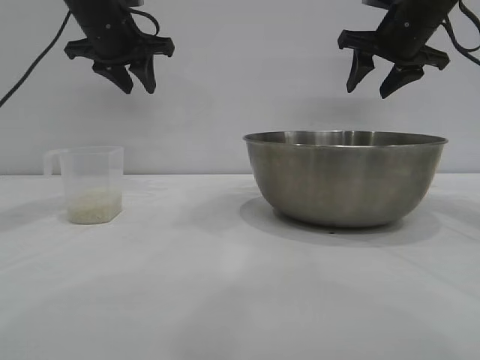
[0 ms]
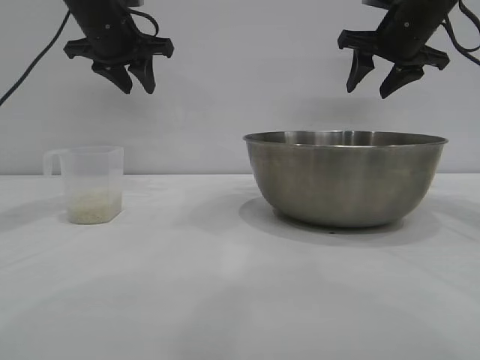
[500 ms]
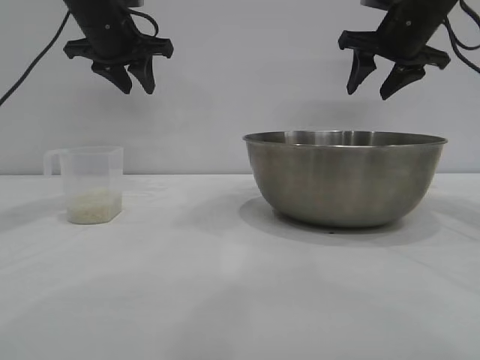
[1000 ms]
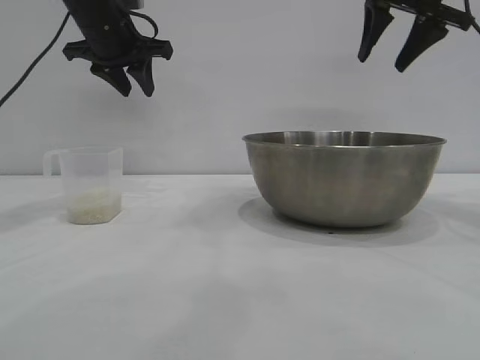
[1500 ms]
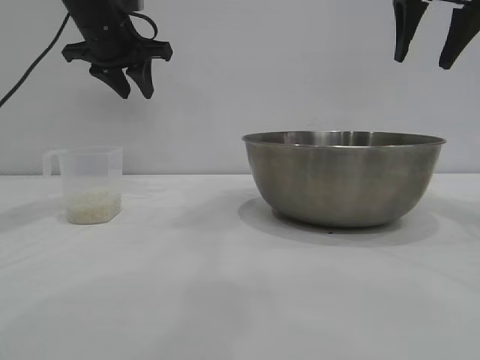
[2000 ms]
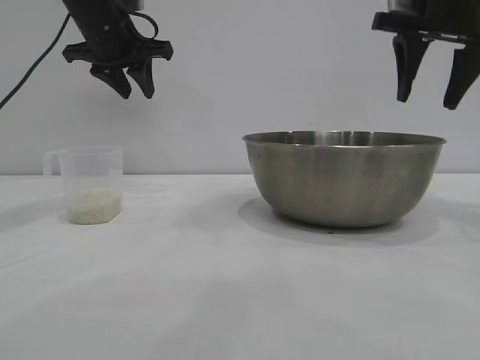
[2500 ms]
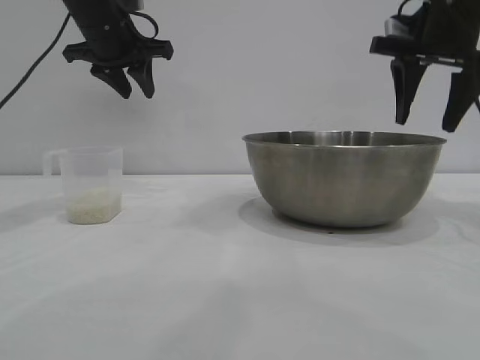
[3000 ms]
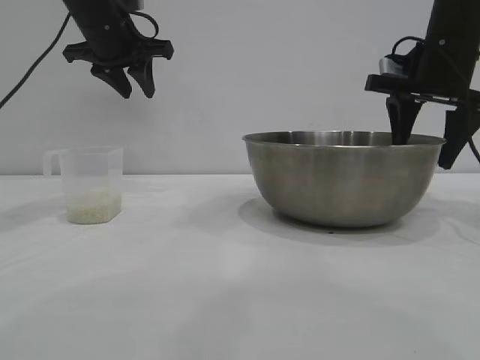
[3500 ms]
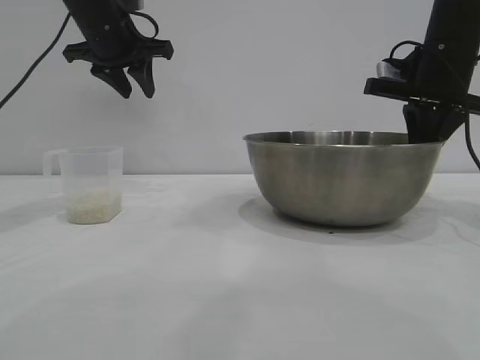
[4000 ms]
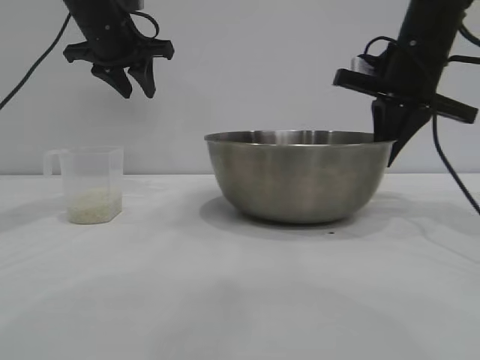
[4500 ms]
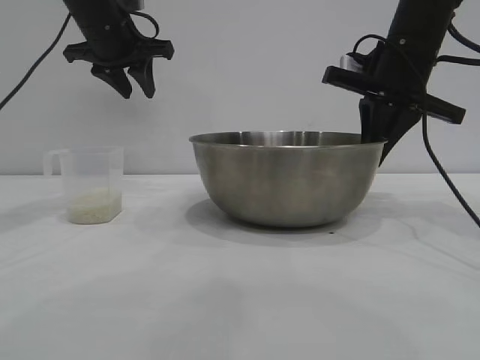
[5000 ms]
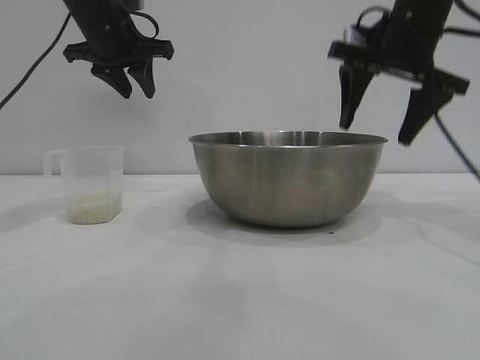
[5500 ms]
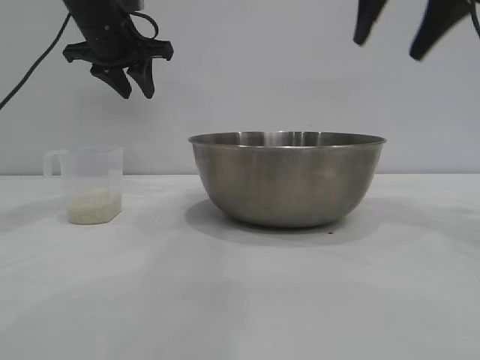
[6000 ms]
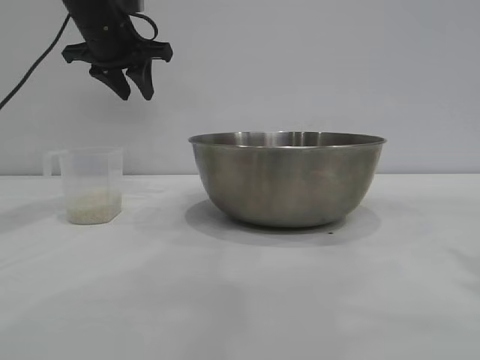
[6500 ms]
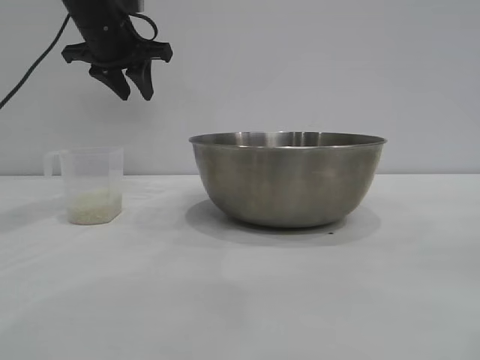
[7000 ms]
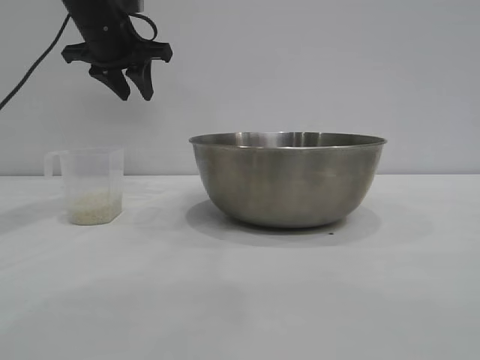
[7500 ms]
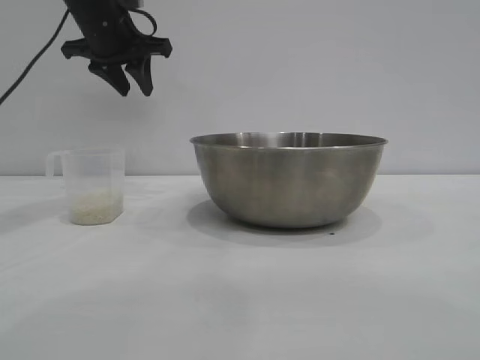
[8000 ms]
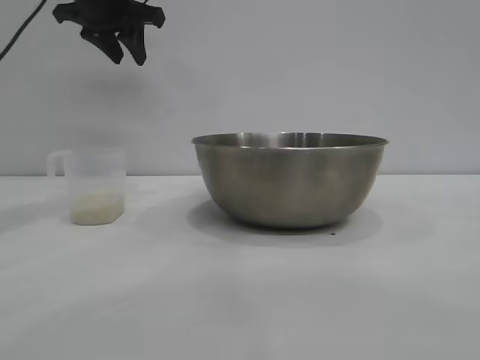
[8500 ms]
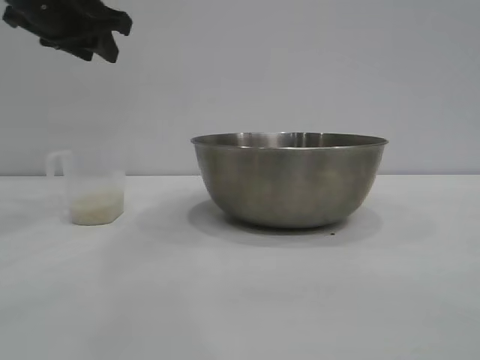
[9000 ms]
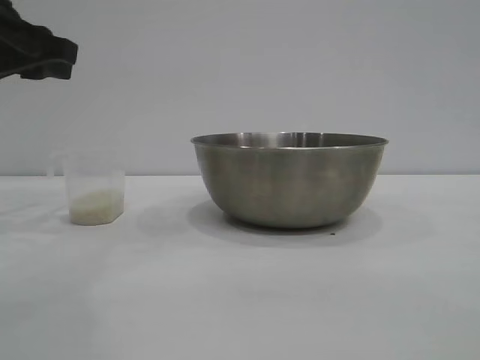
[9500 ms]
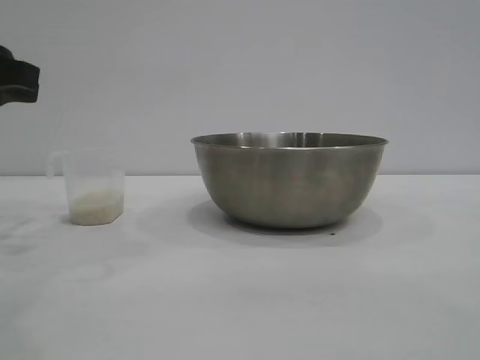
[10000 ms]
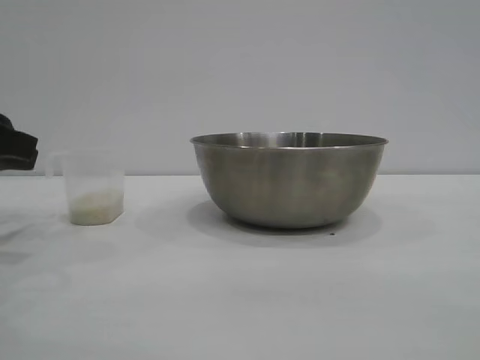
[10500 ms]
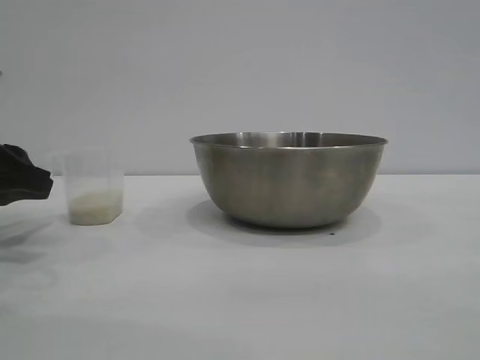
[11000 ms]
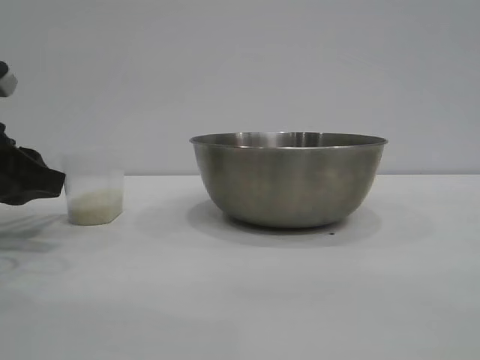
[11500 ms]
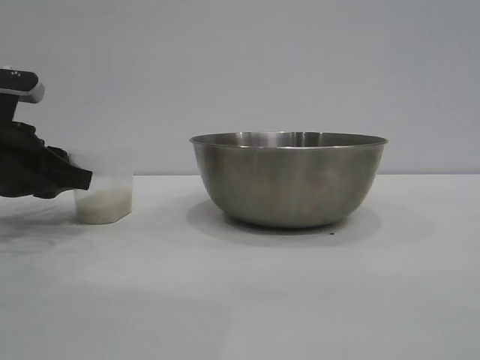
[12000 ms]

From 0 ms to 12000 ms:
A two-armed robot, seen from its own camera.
Task of the whole recording: the right gripper grasp the rice container and place it in the center of the table, the left gripper grasp the rice scoop and pour the rice into the rice container.
Step, from 0 ms to 5500 ms: Move the bowl to the center of view with the right gripper.

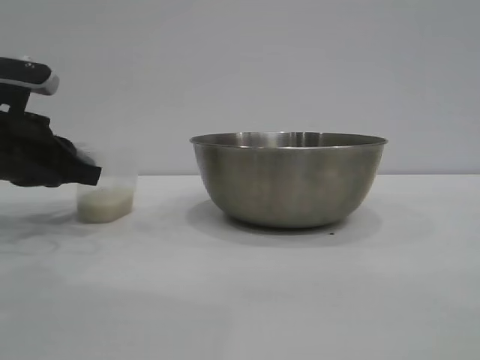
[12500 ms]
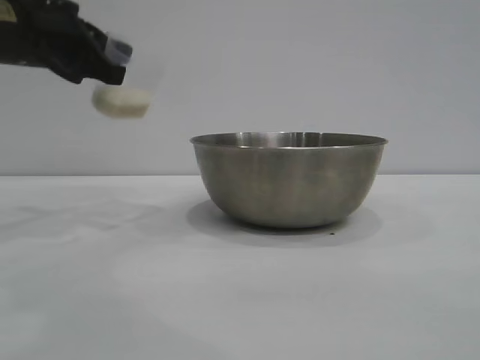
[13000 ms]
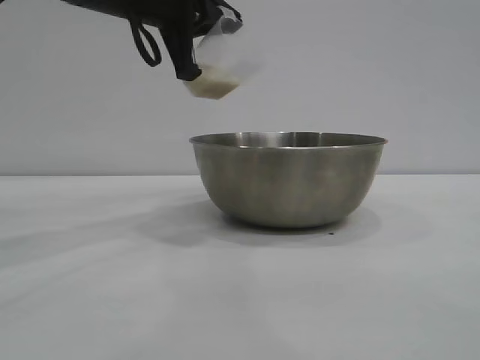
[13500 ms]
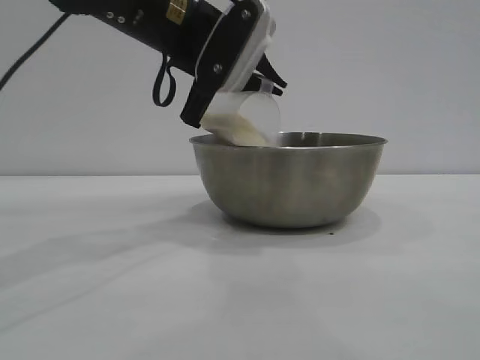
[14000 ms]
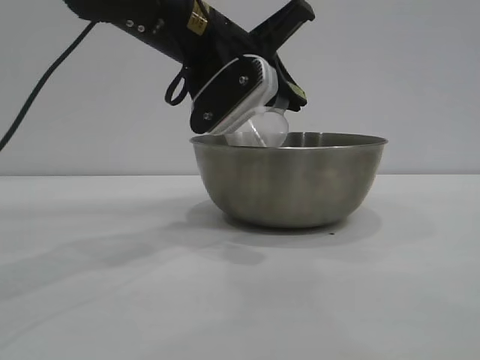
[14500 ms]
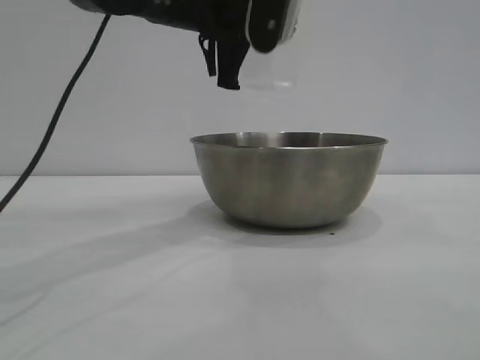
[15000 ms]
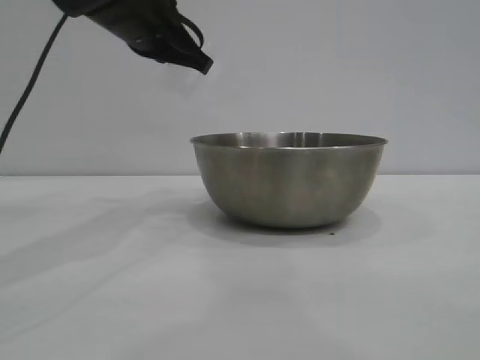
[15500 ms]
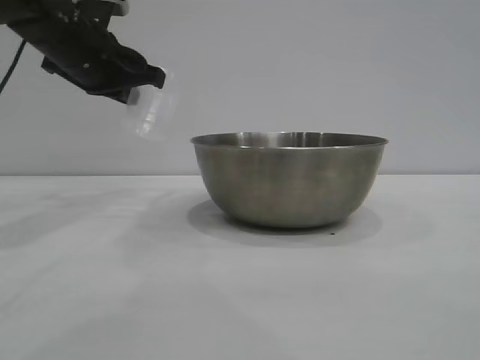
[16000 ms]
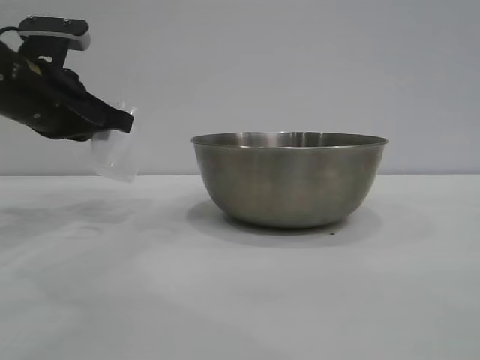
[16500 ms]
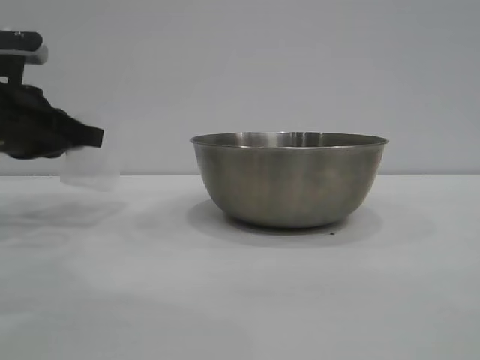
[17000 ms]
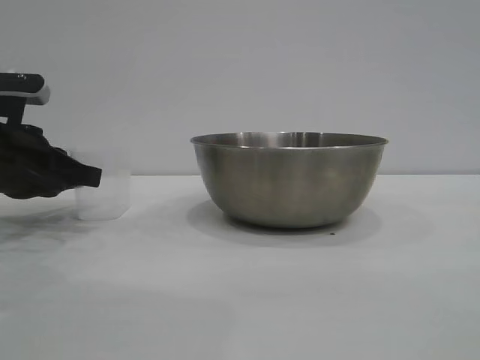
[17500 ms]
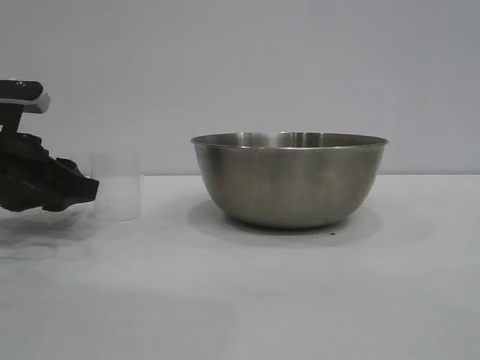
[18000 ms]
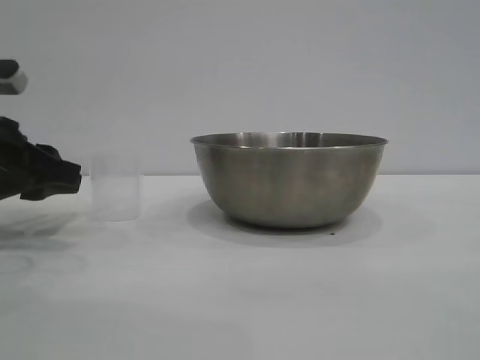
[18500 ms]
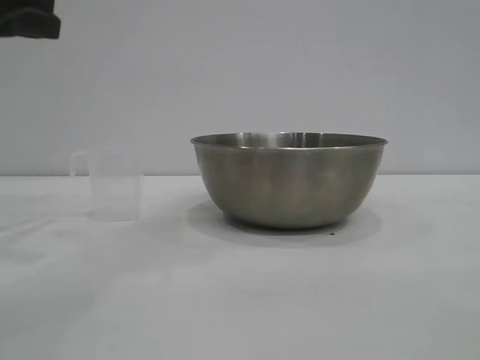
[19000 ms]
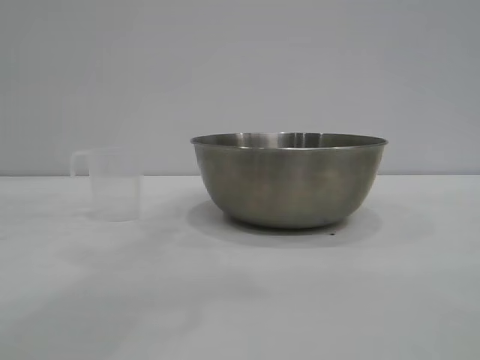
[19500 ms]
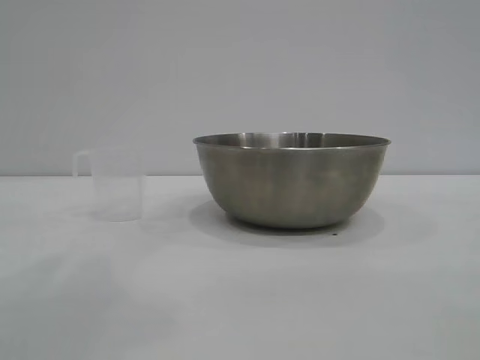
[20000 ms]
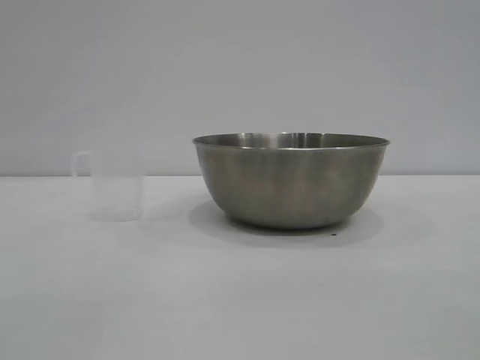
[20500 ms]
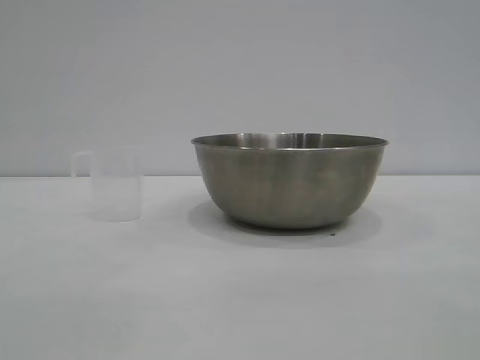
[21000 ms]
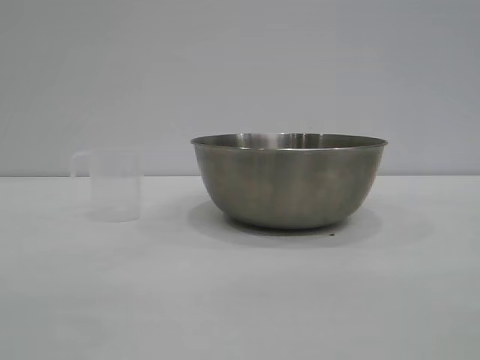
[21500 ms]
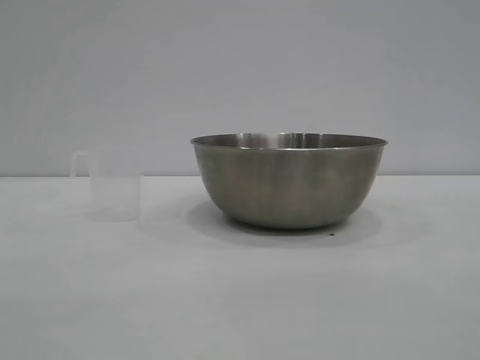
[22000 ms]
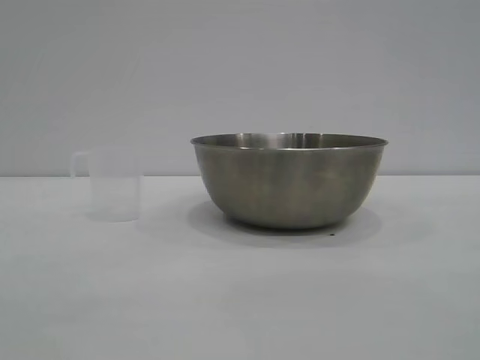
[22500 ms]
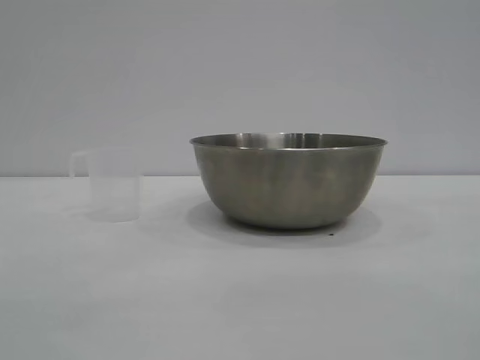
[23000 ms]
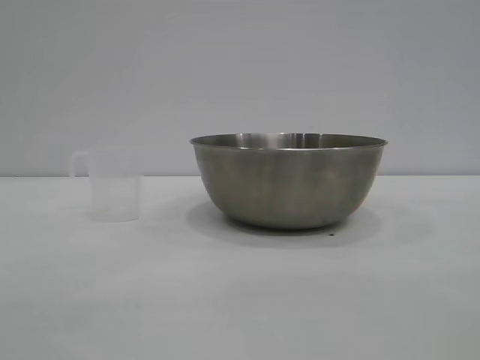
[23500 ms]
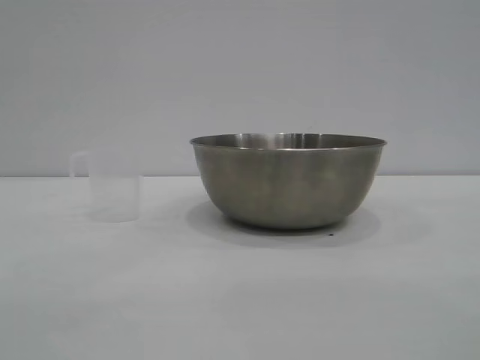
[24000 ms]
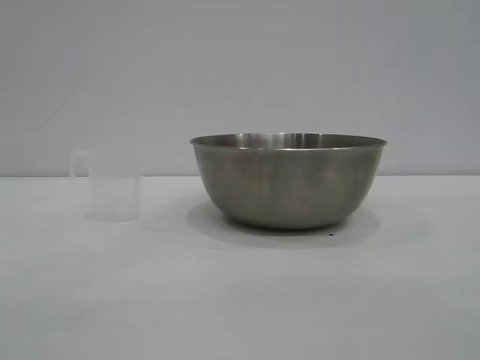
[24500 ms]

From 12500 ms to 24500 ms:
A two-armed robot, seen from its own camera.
Task of the whole recording: the right gripper grasp the rice container and place it in the center of the table, the left gripper grasp the rice scoop and pour the rice into the rice container.
Step, from 13000 ms to 14500 ms: Pour the rice from the cup into the bowl with the left gripper.
Step, from 15000 ms to 18500 ms: Place the cup on the table with the left gripper.

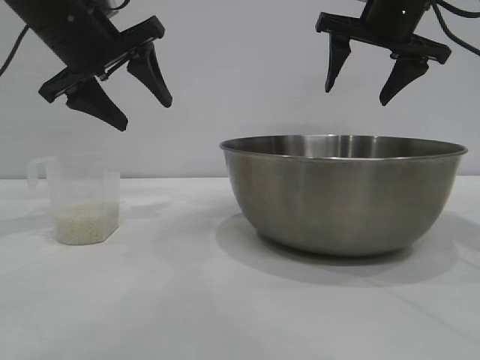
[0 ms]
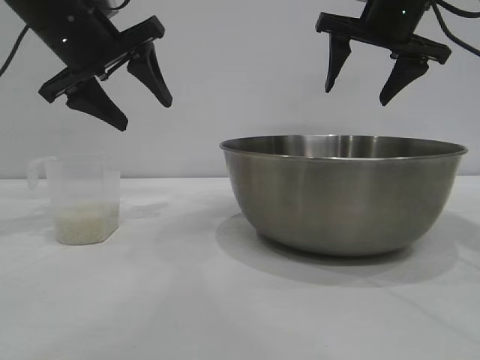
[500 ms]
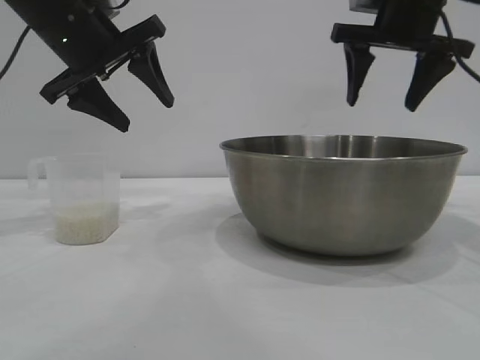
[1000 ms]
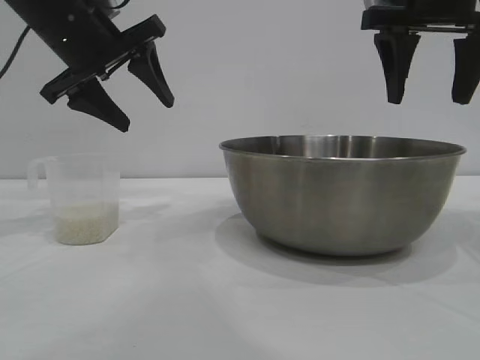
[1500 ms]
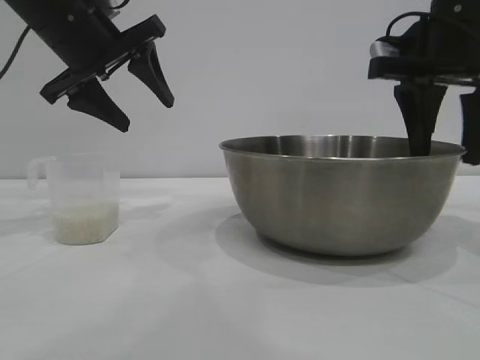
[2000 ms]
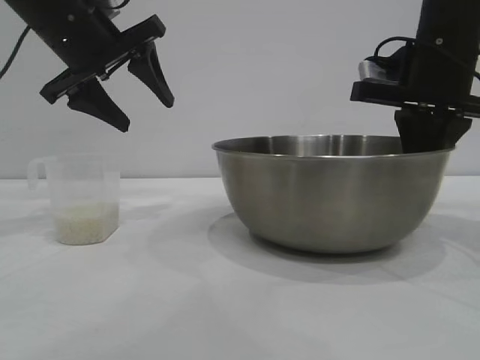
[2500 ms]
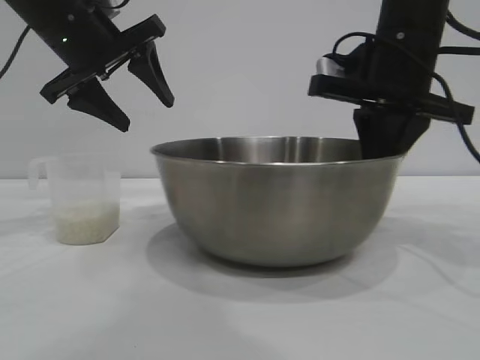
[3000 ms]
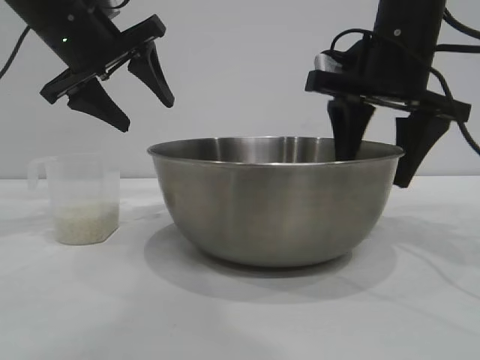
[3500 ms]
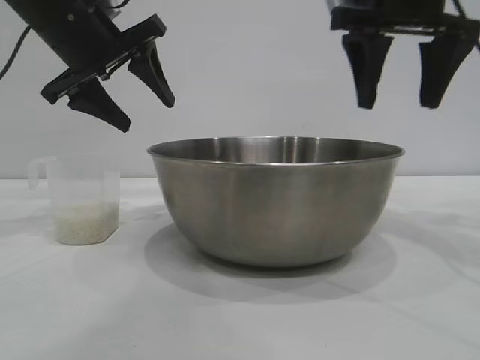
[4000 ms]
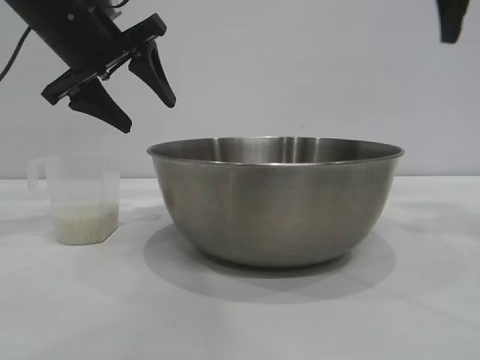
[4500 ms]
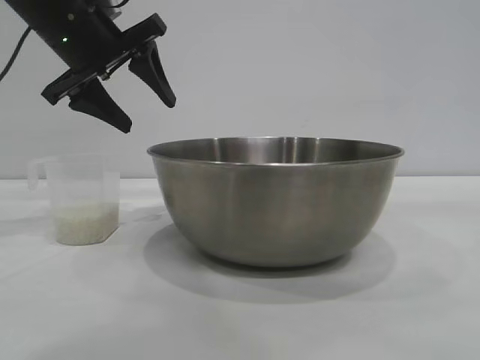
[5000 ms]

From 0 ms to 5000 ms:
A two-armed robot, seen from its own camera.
Task of the whole recording: the right gripper grasp the rice container and place it in the center of the table, the left gripper grasp the rice scoop and pour the rice into the rice container.
Step, from 0 ms to 3500 ms: Move the bowl to the center of view with the right gripper.